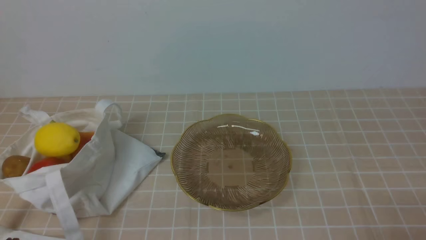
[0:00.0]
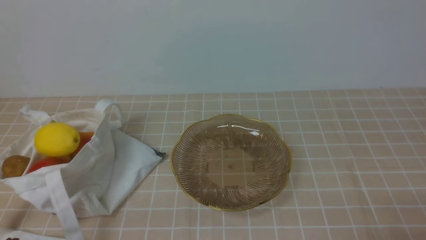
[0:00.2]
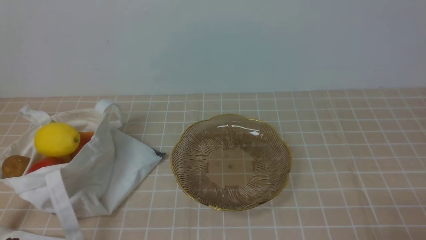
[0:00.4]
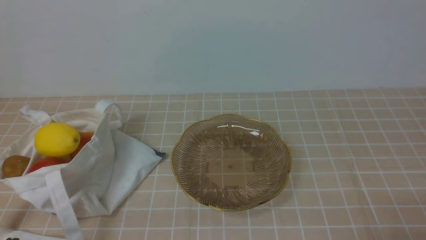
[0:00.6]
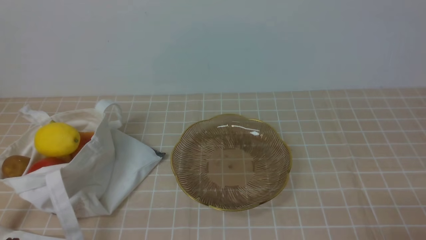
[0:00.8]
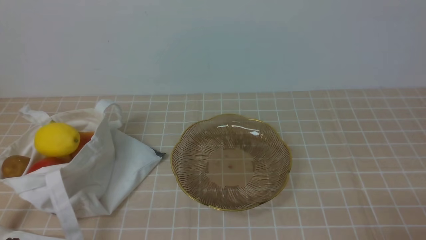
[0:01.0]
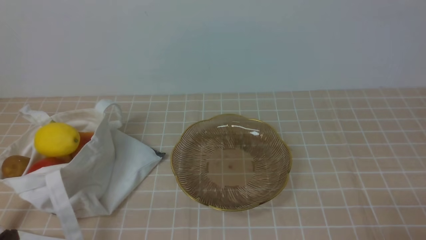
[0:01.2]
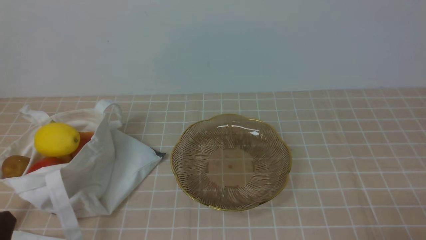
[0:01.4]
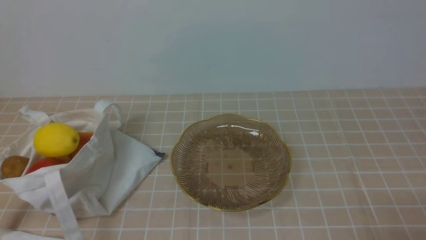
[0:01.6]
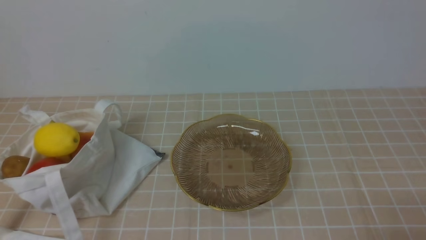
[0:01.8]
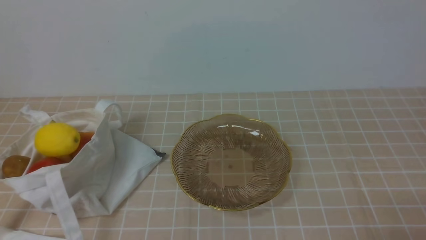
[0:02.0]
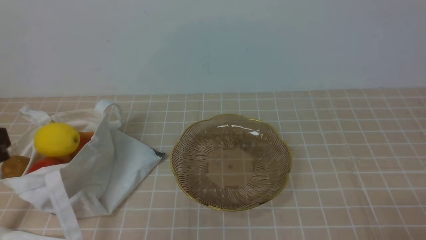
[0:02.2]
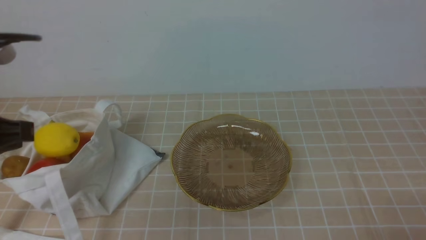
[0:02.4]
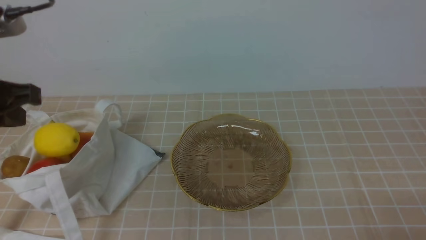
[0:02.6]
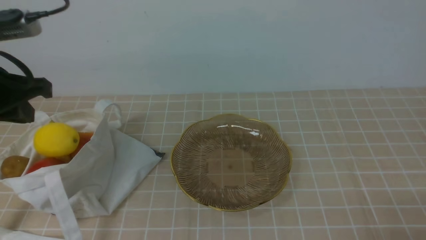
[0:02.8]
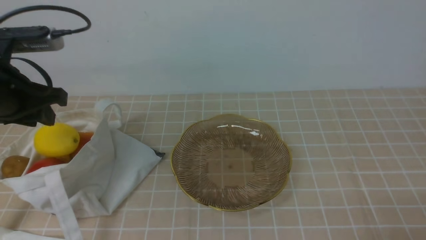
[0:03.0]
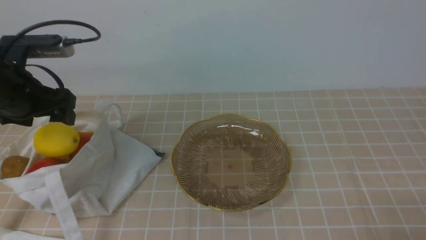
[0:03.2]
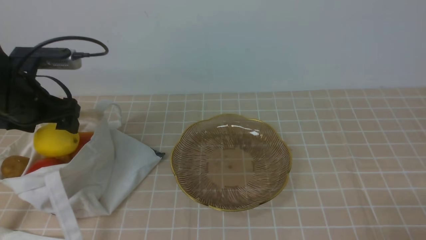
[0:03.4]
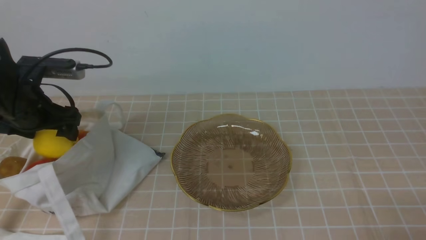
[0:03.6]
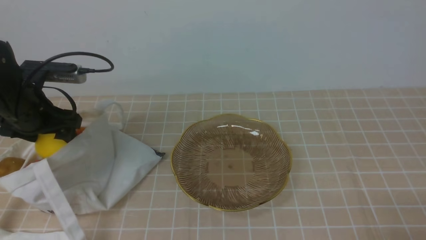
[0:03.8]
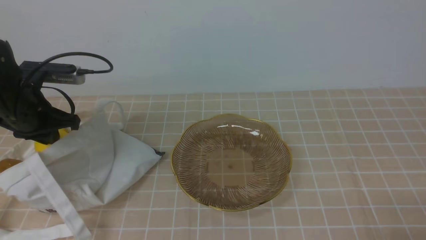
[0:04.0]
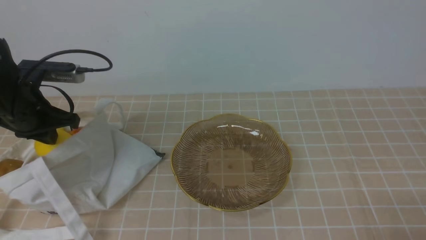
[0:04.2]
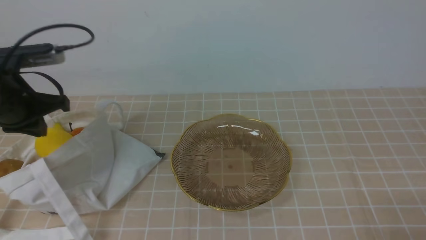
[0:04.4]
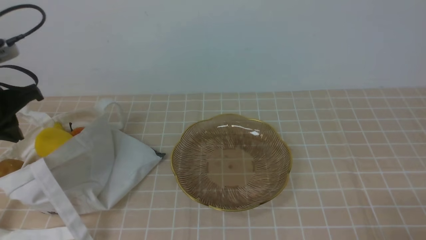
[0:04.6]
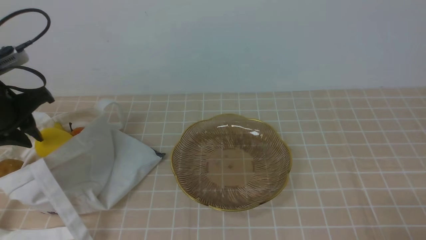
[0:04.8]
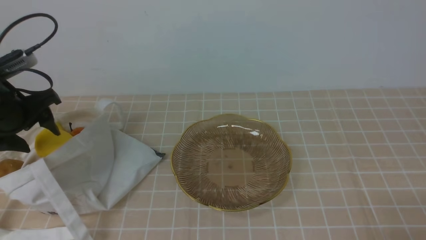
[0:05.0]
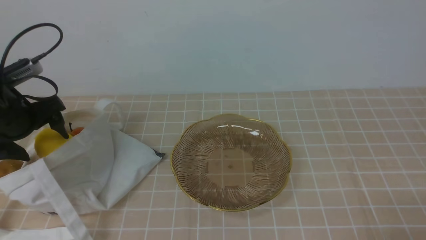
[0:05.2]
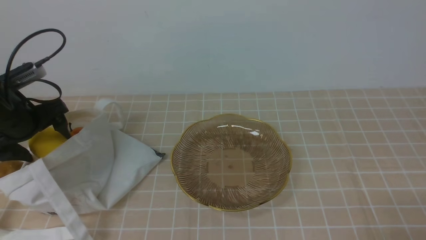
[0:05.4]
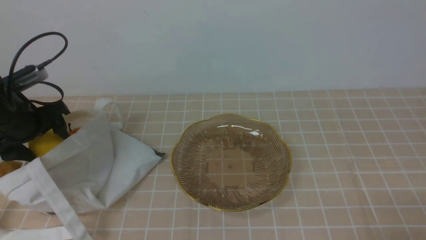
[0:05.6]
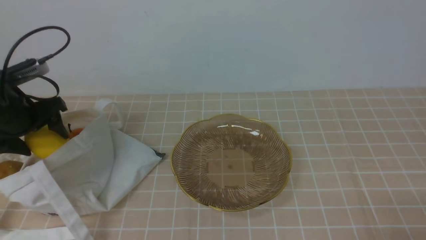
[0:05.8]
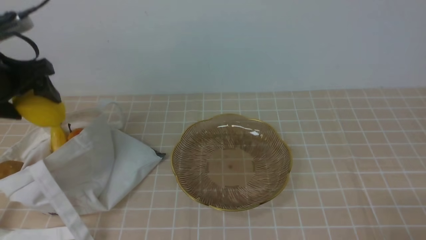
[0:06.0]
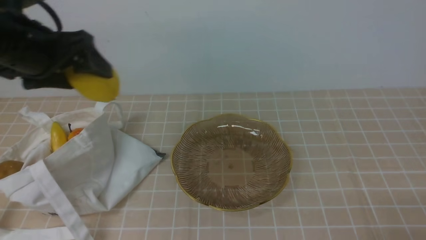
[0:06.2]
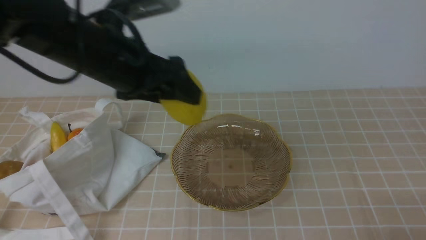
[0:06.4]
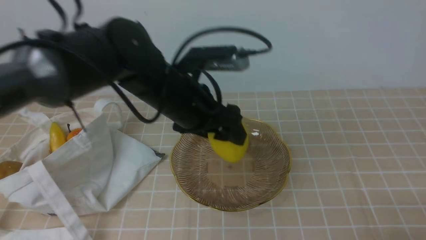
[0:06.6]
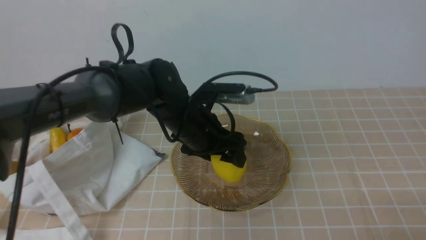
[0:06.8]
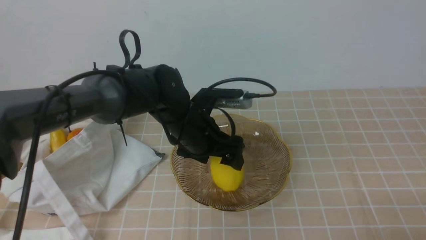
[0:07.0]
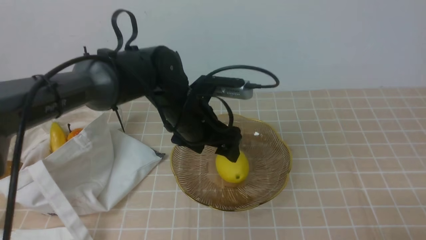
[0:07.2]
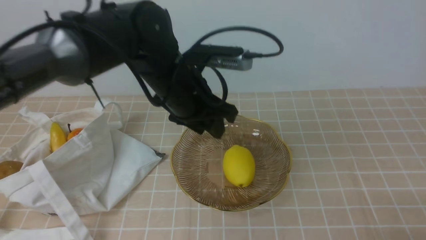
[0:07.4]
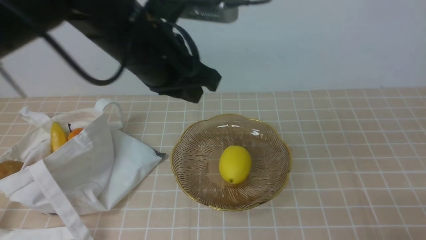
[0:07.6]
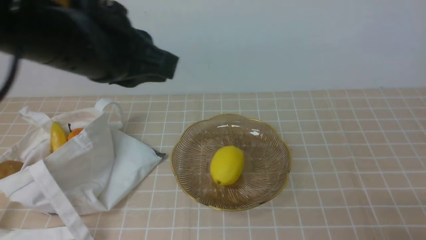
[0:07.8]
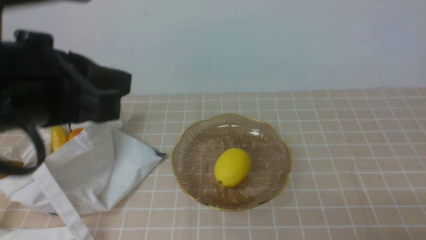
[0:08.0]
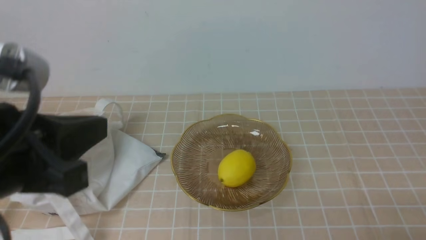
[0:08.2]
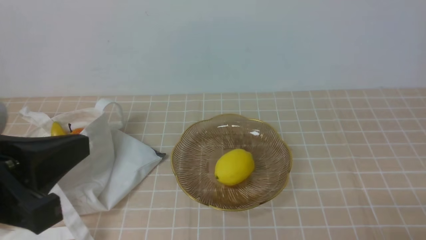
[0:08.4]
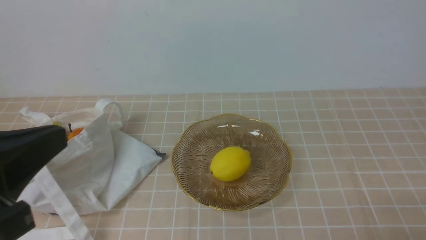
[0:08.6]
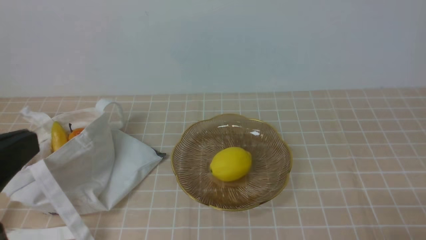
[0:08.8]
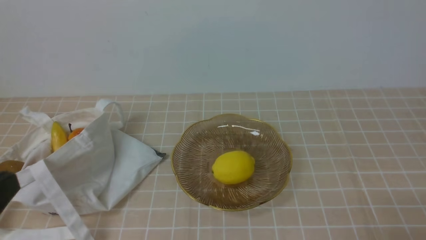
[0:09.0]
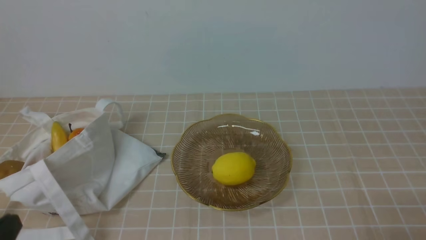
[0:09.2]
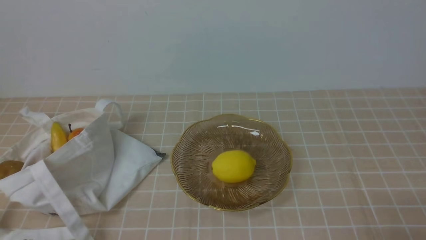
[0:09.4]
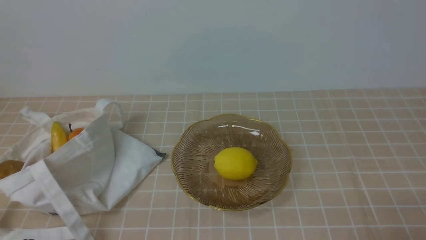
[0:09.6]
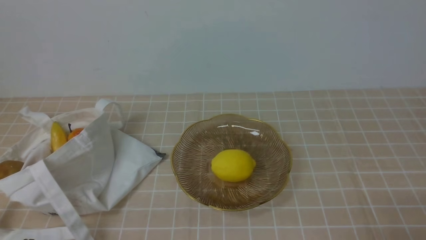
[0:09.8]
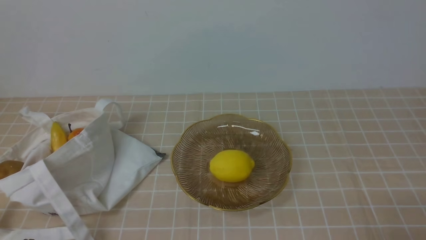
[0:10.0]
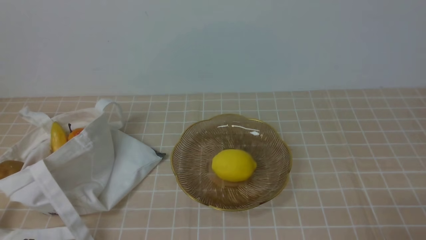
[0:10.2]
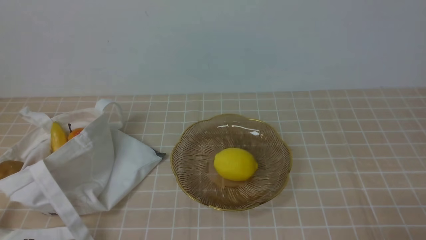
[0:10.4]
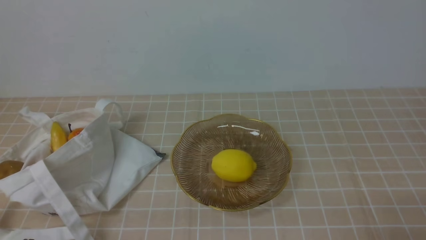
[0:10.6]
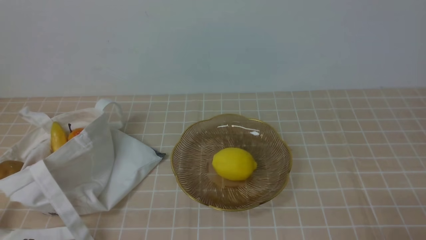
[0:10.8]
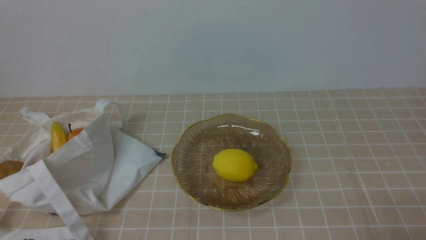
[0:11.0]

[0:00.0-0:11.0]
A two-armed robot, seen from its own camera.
Step, 0:00.0 to 0:05.8: use the left arm to grab a lemon from the bag.
Step, 0:06.0 to 0:07.0: use the left arm to put the lemon into the empty plate on the right.
0:01.6 to 0:03.2: The left gripper moves forward and upward, about 25 cm, and opens.
0:03.2 to 0:04.8: The left gripper closes its fingers.
0:04.8 to 0:06.2: The left gripper heads to the right and upward, covering about 10 cm, and opens.
0:06.2 to 0:07.8: The left gripper moves to the right and backward, roughly 15 cm, and closes up.
0:07.8 to 0:09.4: The left gripper goes some 30 cm backward, downward and to the left.

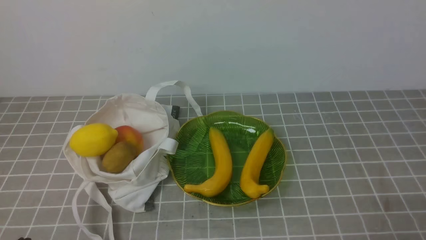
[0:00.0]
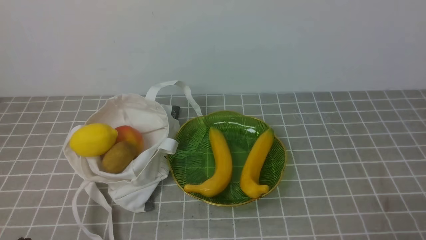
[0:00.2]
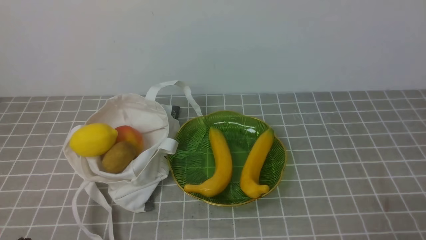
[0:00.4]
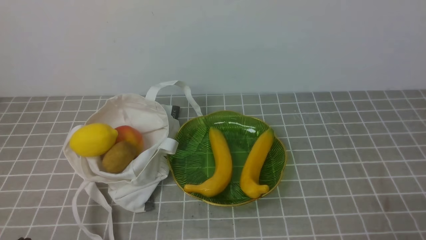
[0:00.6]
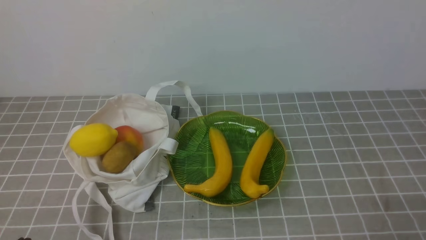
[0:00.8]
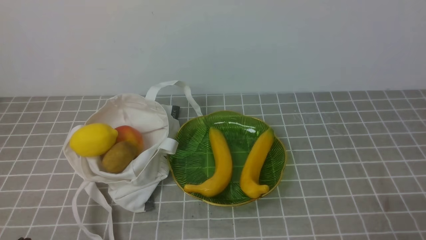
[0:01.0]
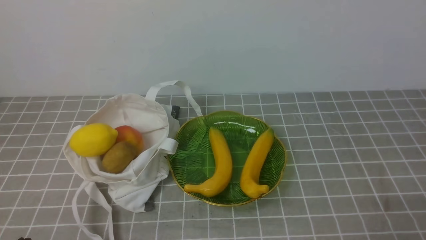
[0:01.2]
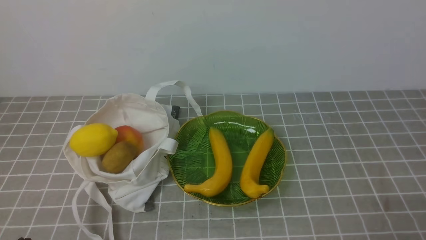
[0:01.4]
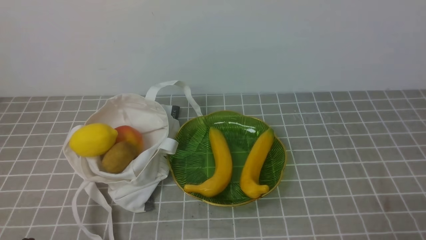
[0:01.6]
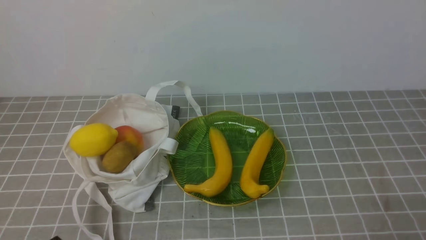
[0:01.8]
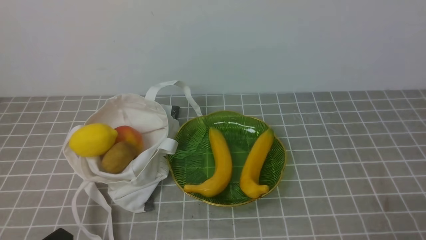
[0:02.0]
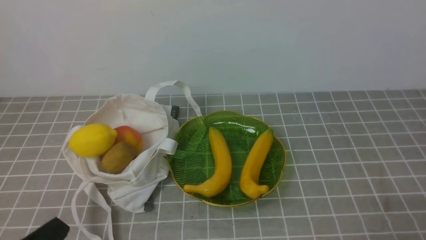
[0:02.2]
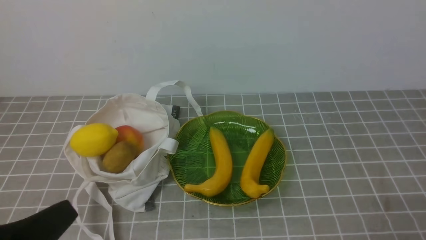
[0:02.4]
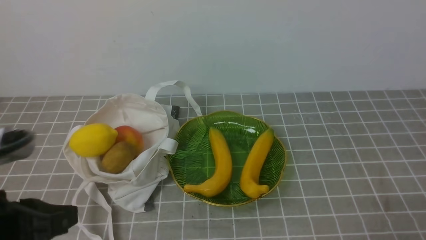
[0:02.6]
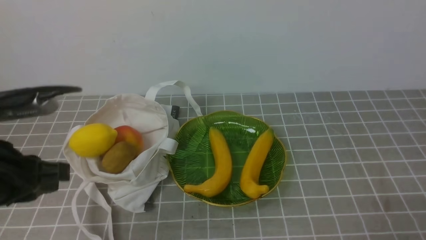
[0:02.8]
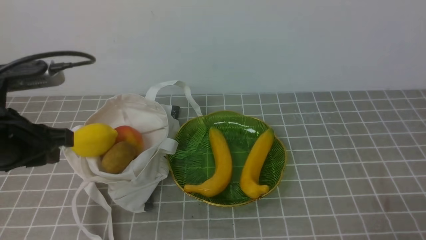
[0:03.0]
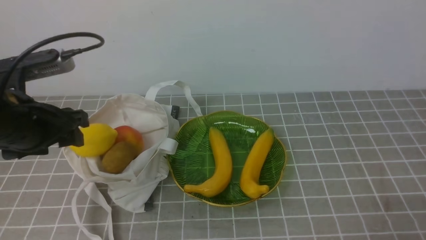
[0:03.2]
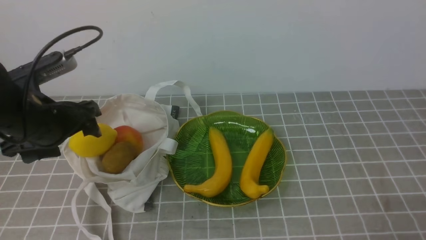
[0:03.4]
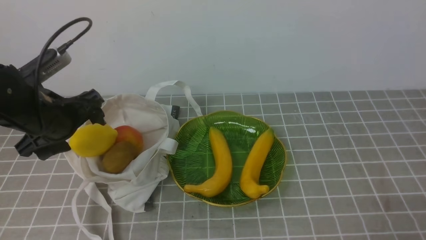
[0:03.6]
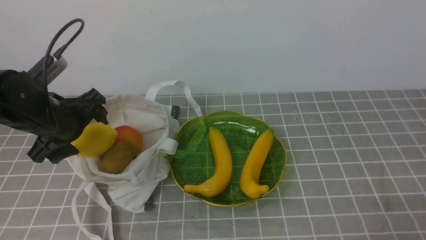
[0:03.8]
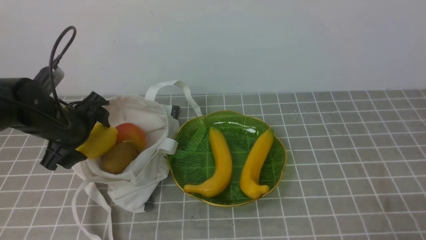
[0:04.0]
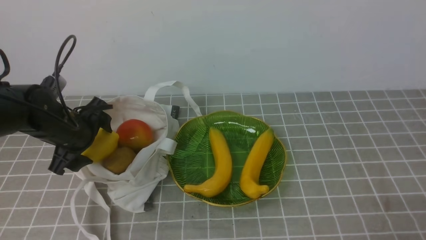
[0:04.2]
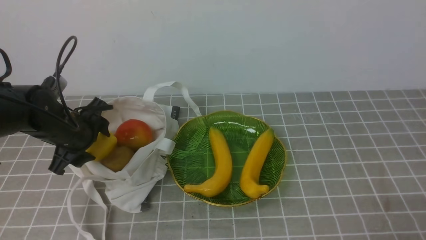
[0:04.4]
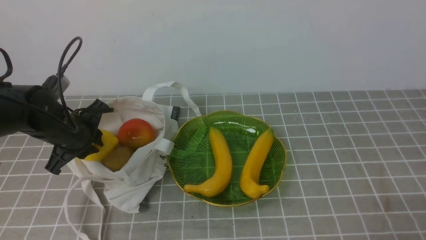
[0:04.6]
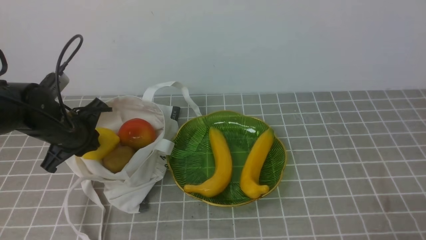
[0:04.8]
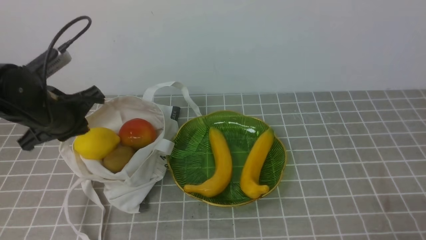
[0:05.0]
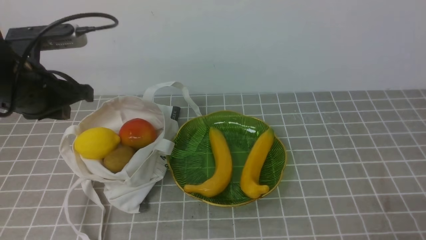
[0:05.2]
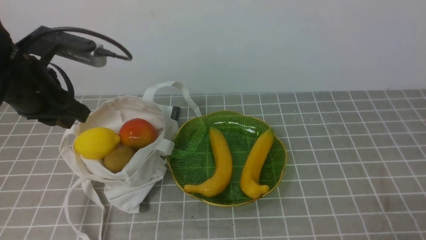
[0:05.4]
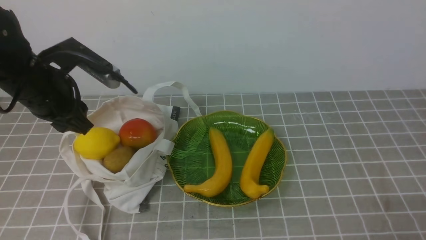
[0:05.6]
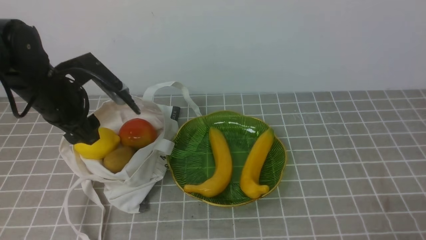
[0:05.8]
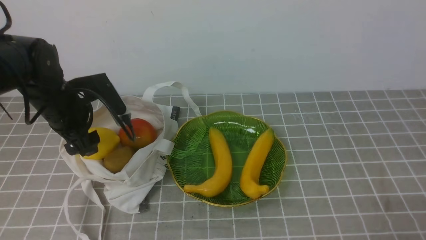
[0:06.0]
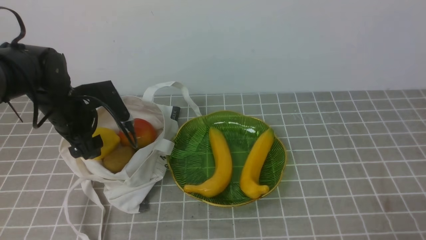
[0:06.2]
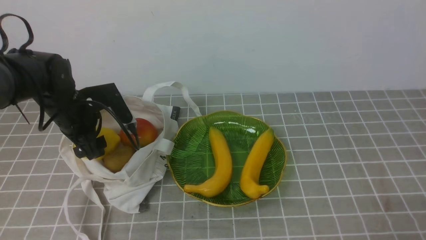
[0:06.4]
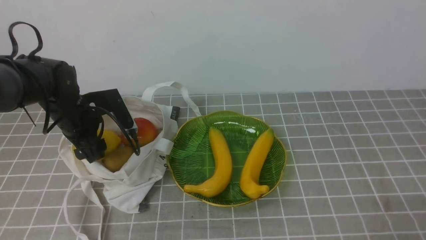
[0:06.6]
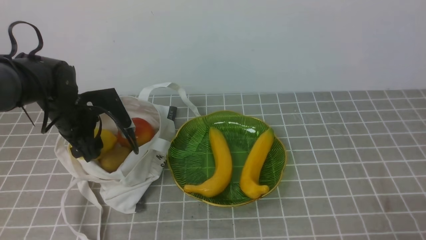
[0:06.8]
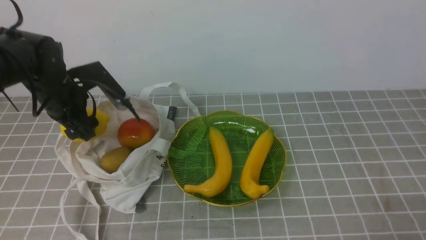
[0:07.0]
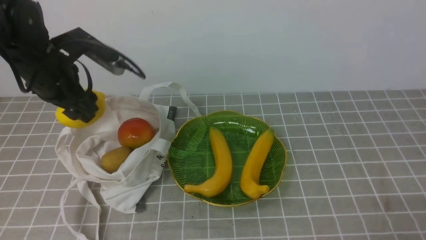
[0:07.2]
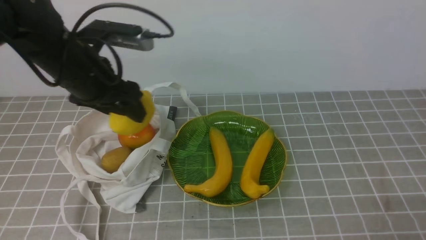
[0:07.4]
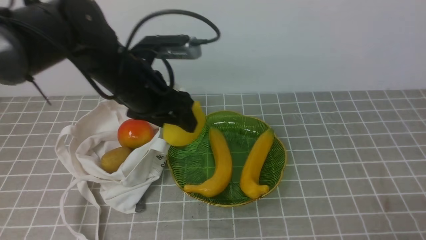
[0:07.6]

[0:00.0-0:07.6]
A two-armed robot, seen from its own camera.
Step, 0:00.0 to 0:07.0: use the left arm to grab a lemon from the bag.
0:01.6 to 0:03.0: The left gripper heads forward and upward, covering approximately 20 cm, and opens up.
0:03.0 to 0:04.6: The left gripper moves forward and downward, some 15 cm, and opens, then closes again.
0:04.6 to 0:06.0: The left gripper travels upward and back again, approximately 10 cm each way, and opens its fingers.
0:06.0 to 0:07.6: The left gripper shifts roughly 10 cm to the right.
